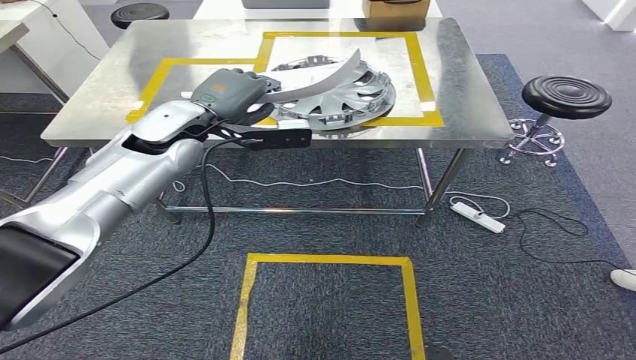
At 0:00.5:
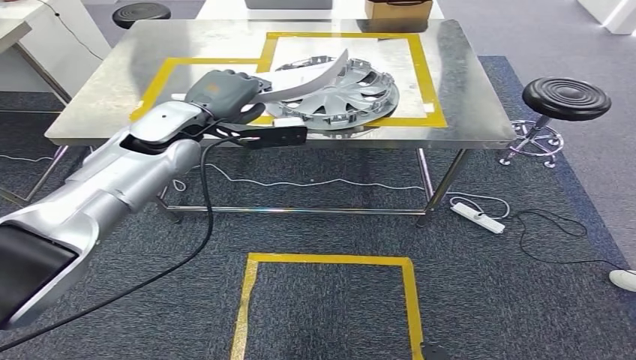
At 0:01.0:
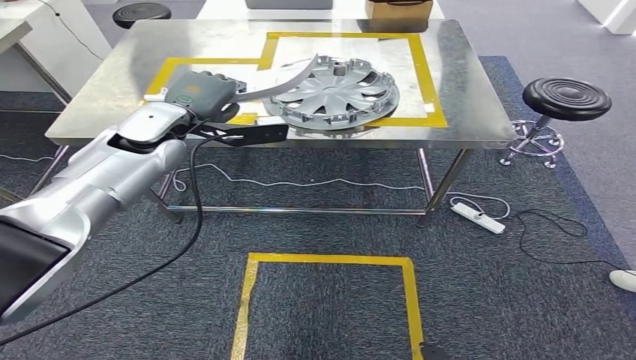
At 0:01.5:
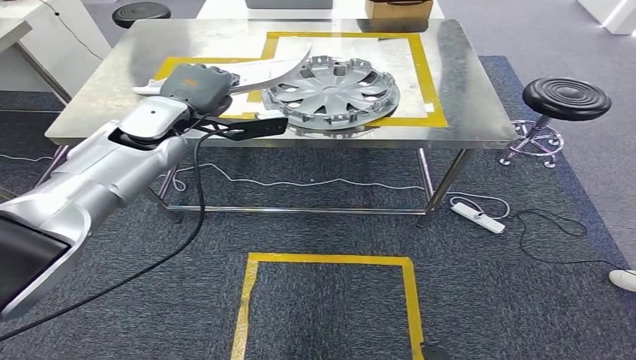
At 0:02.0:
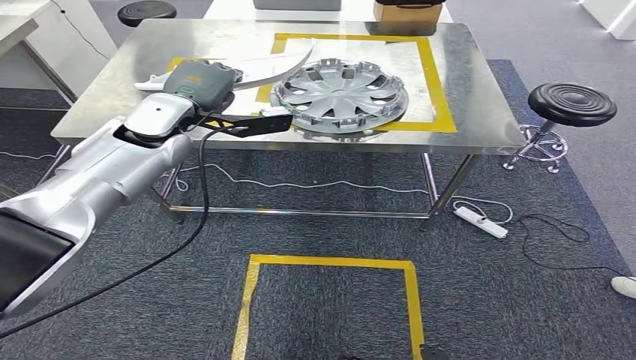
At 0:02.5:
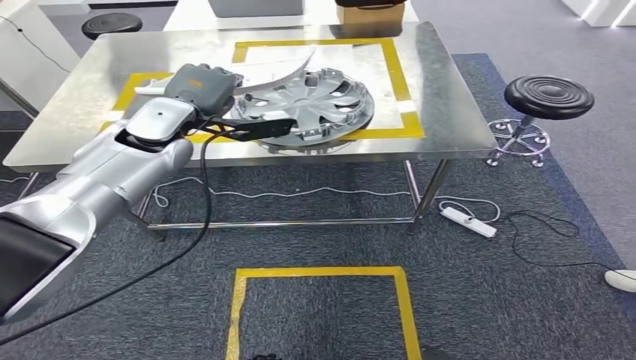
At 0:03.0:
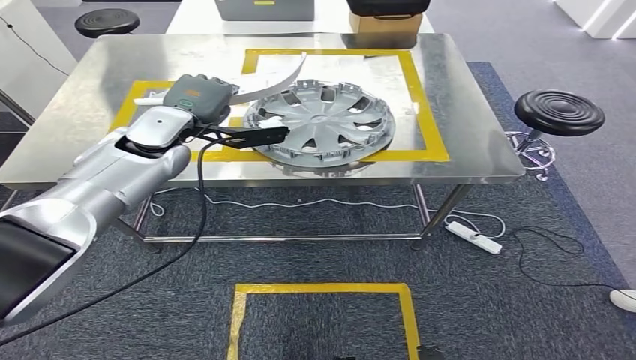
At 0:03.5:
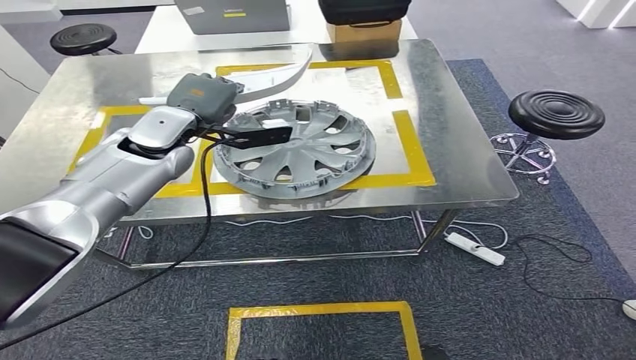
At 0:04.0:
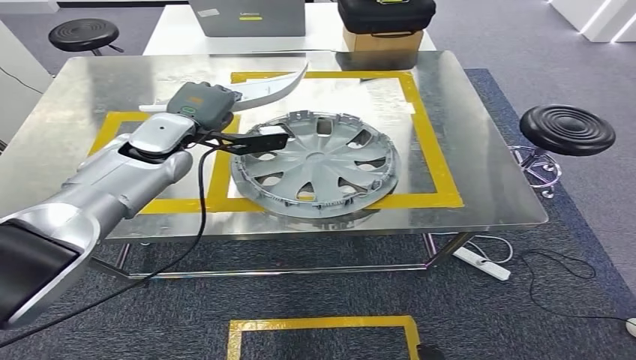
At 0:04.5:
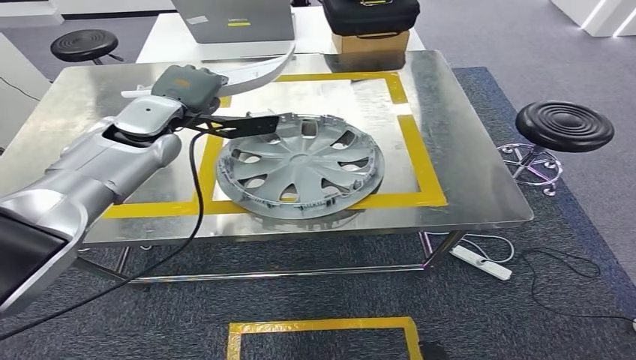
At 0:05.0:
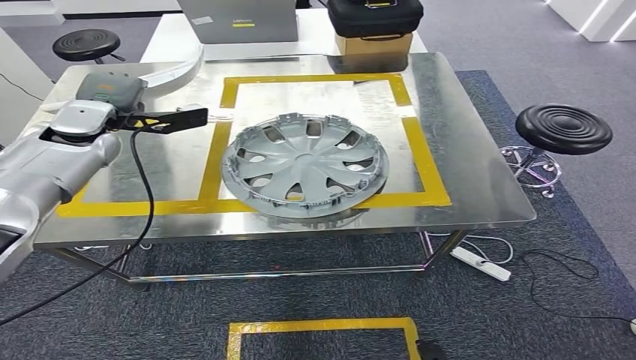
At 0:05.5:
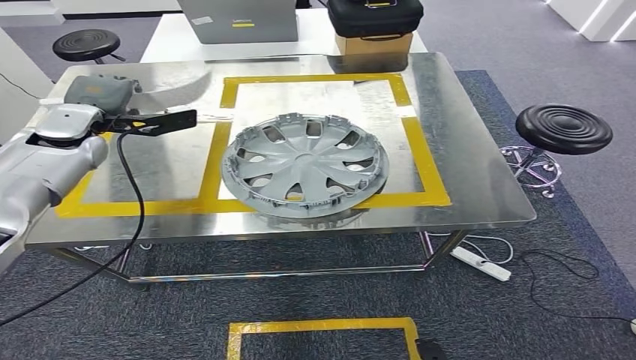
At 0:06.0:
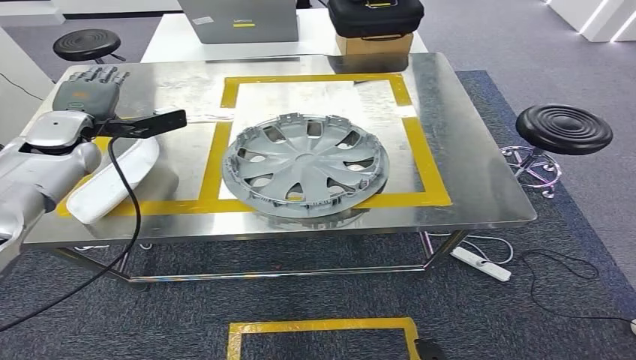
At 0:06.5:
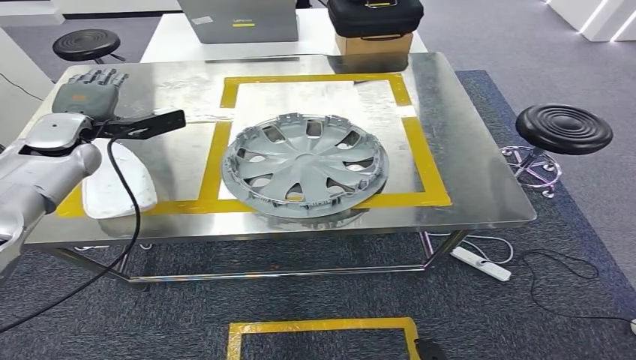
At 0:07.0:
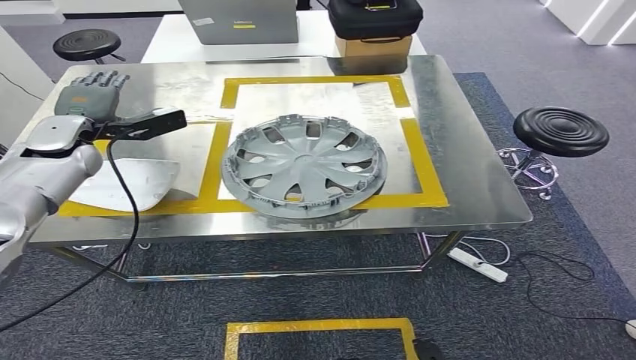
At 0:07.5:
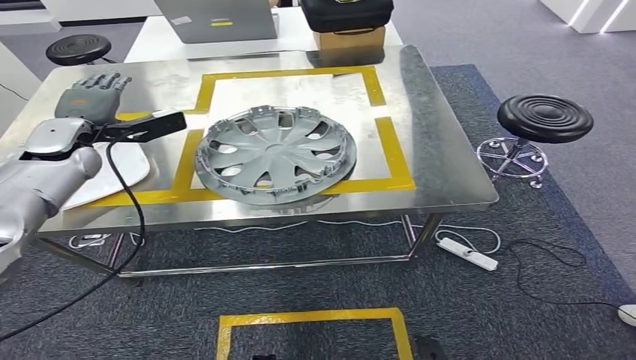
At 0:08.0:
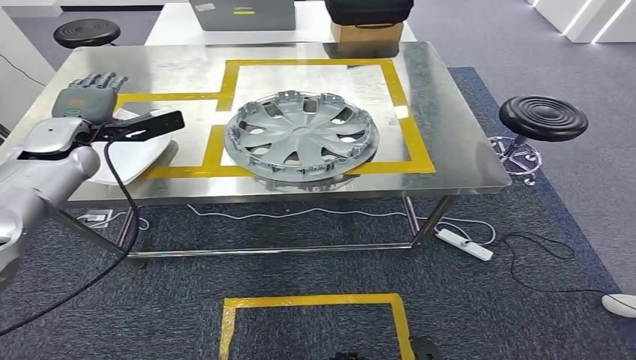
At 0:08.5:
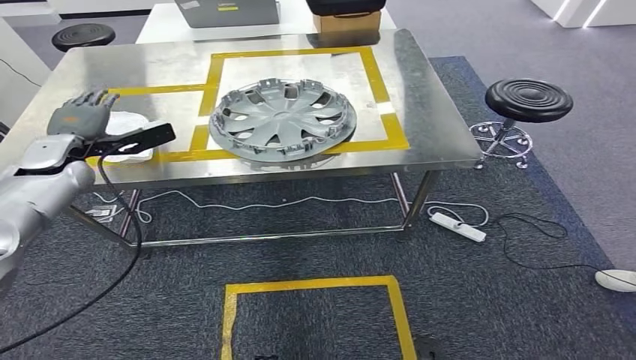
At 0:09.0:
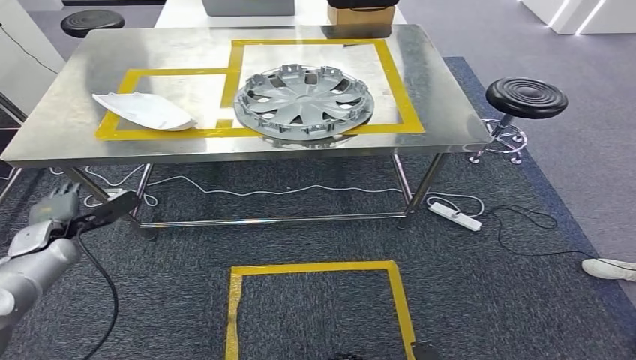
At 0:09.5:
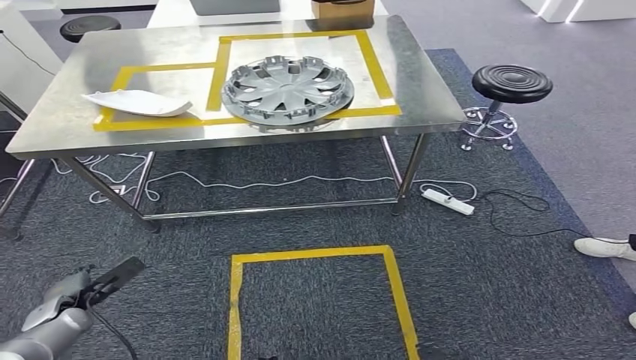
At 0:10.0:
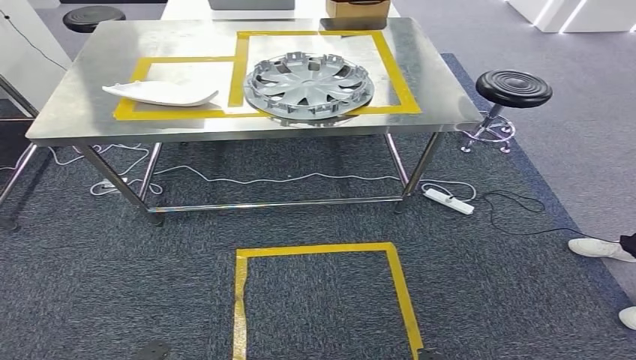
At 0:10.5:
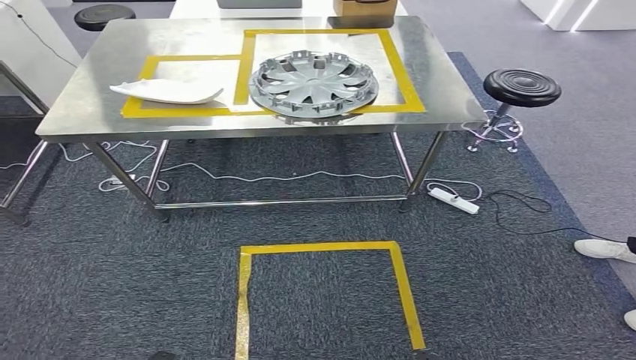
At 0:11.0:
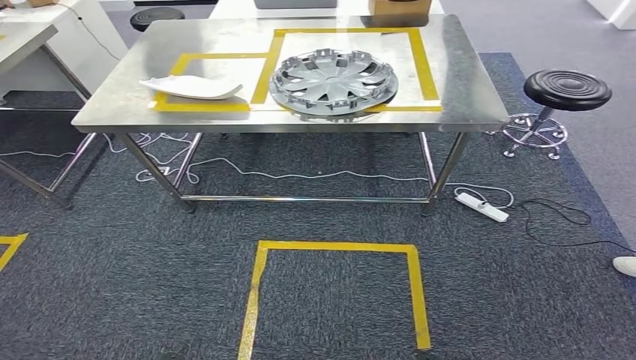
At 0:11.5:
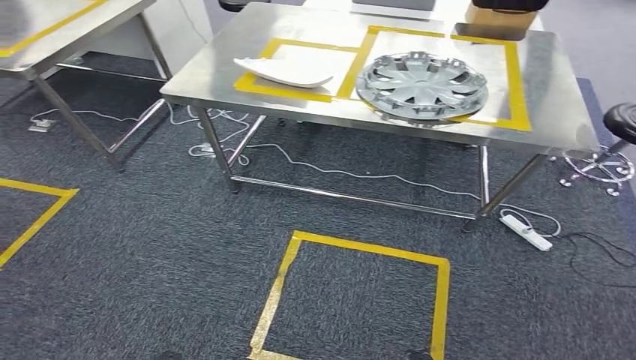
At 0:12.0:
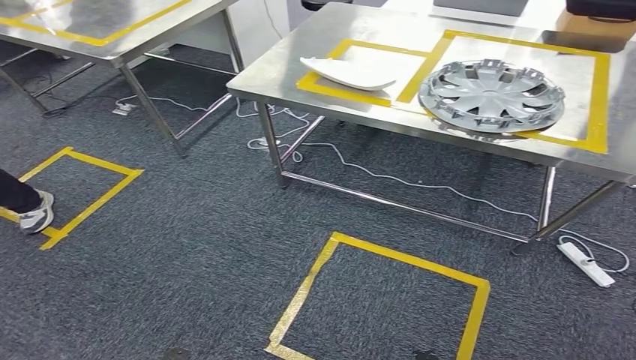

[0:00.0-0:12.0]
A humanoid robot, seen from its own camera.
Step, 0:00.0 to 0:08.0: Insert the small component into the corresponding slot on the workbench.

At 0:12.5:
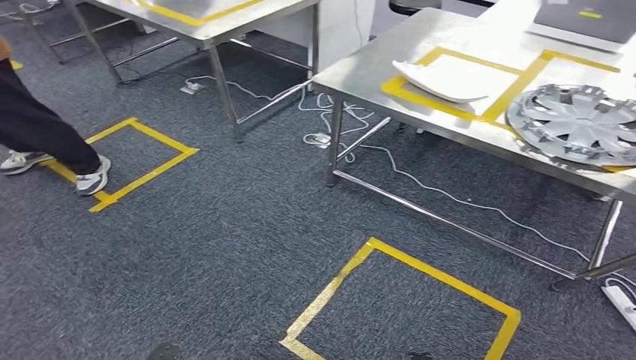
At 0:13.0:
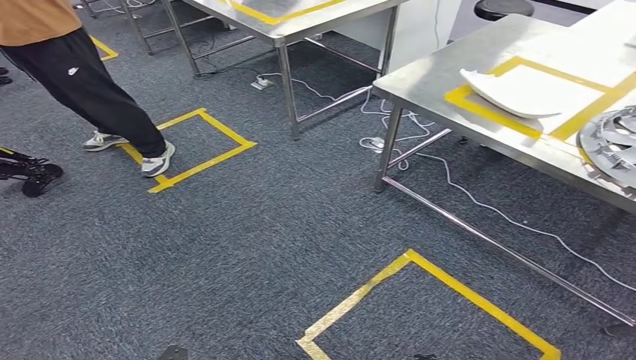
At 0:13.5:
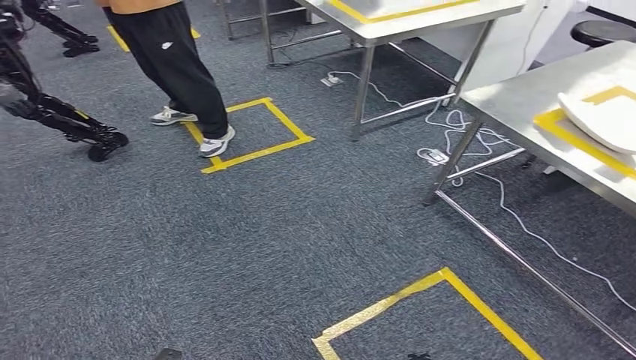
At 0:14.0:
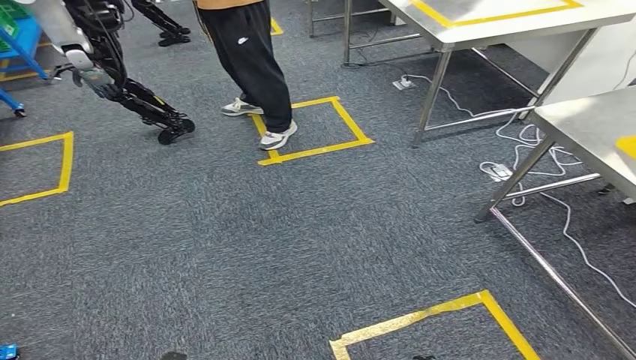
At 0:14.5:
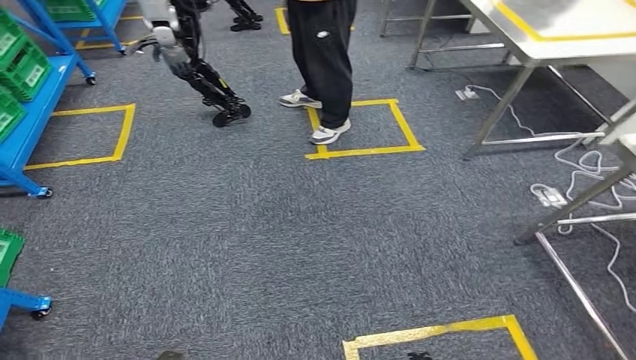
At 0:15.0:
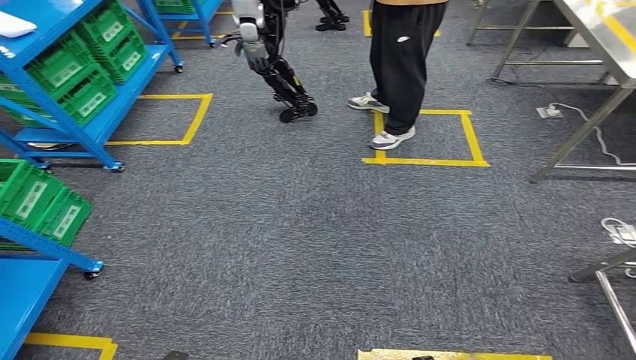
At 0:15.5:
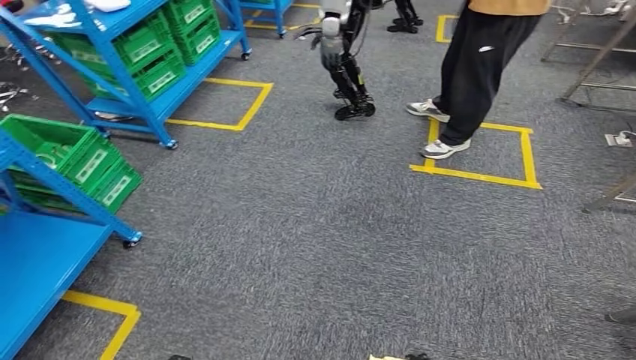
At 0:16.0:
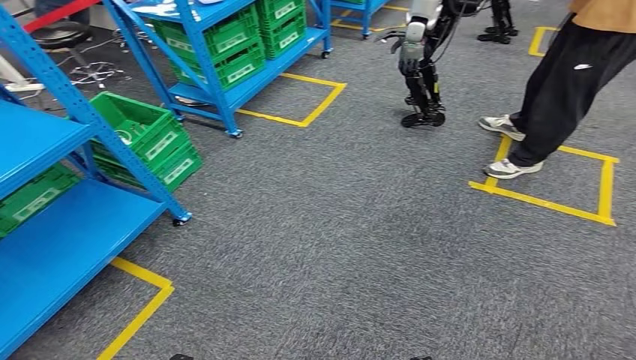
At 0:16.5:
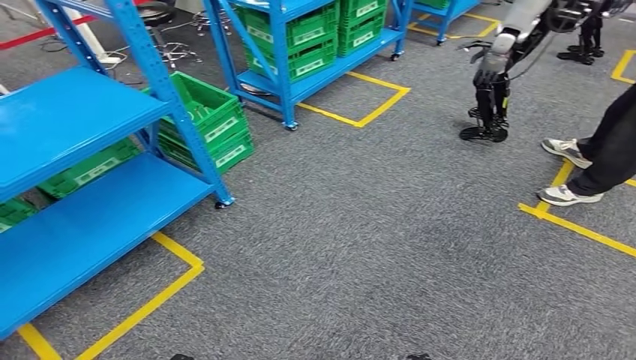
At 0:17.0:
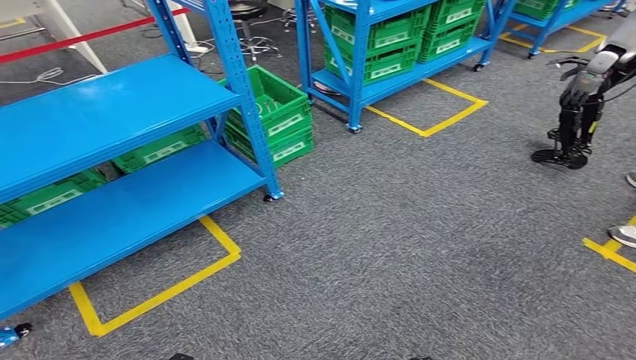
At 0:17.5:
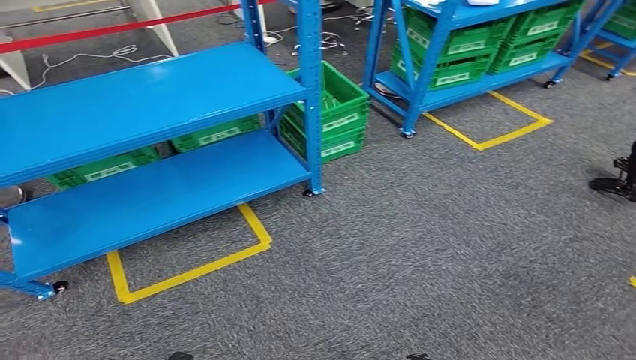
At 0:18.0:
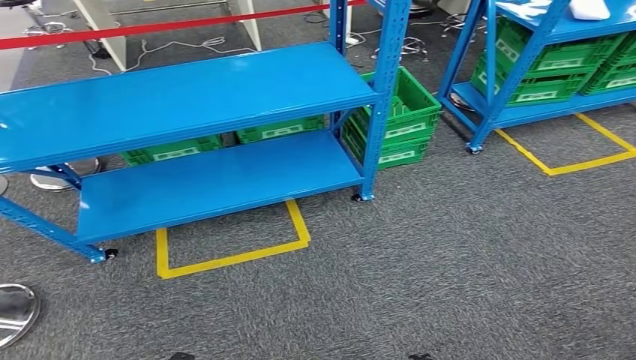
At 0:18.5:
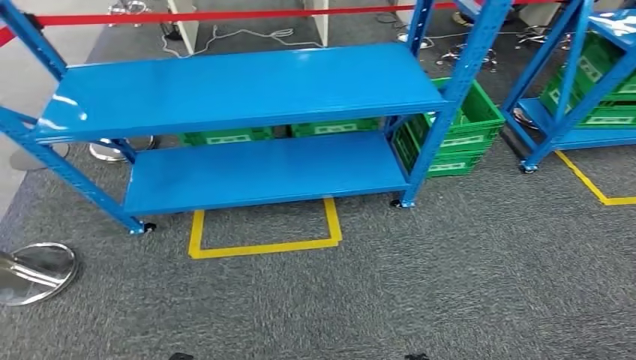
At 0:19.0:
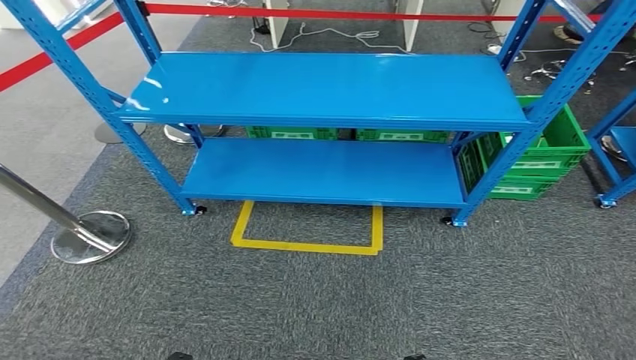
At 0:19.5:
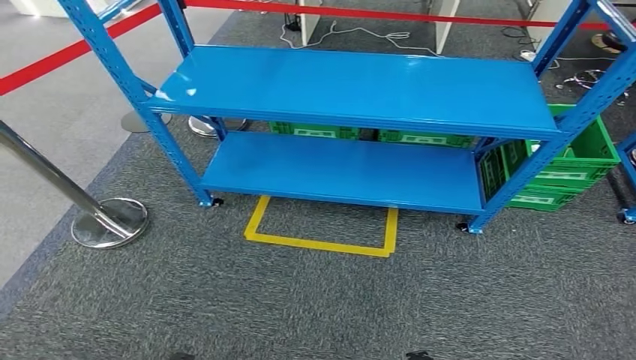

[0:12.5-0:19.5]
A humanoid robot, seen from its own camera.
Step, 0:12.5 to 0:19.5: Return to the initial position at the workbench.
